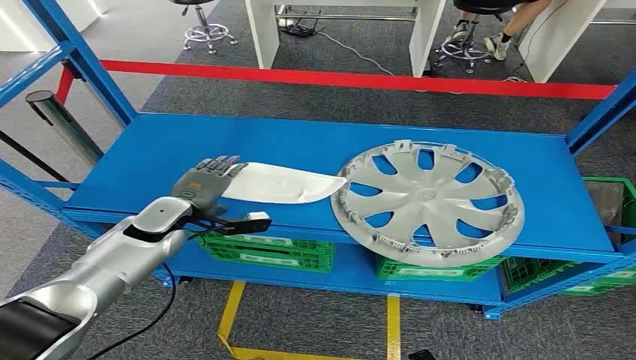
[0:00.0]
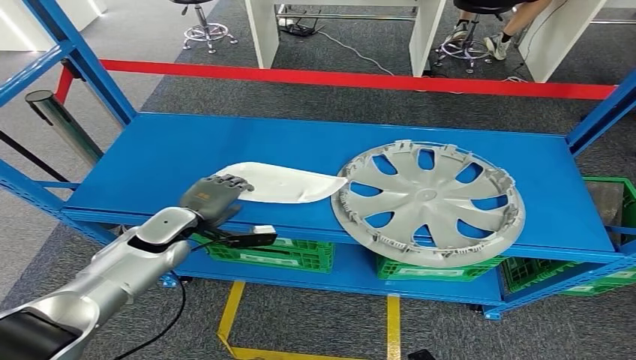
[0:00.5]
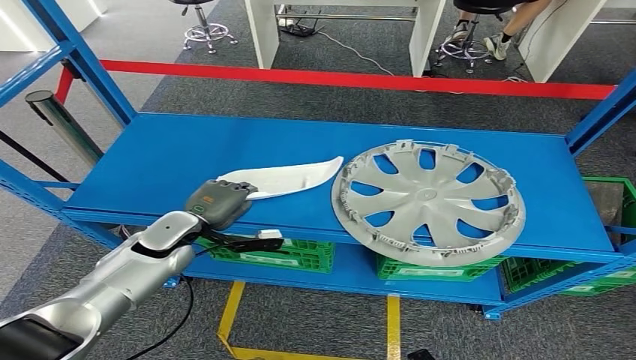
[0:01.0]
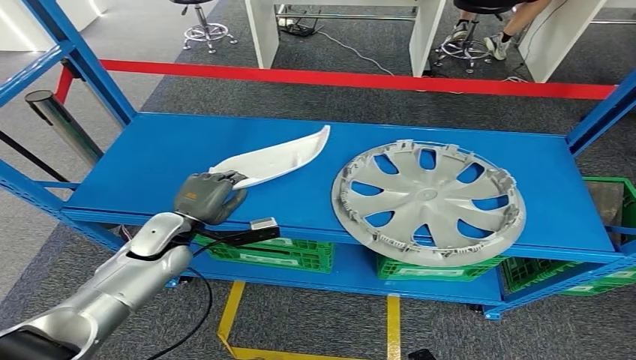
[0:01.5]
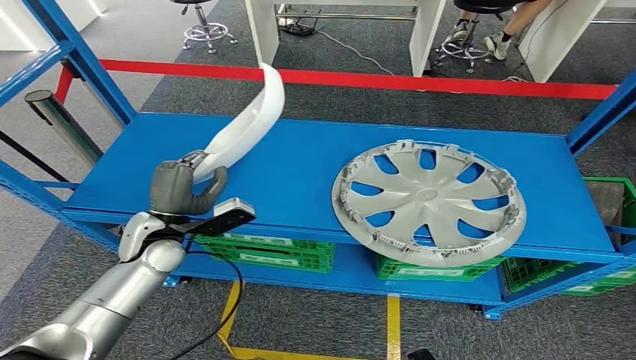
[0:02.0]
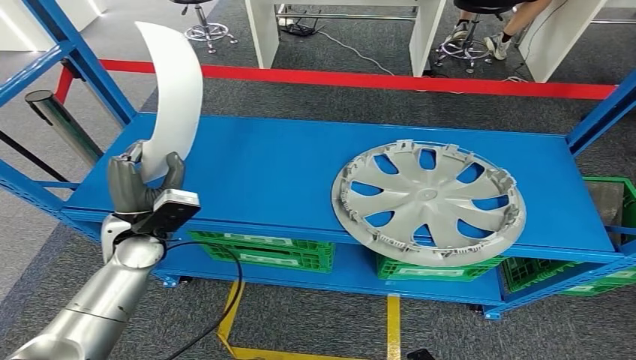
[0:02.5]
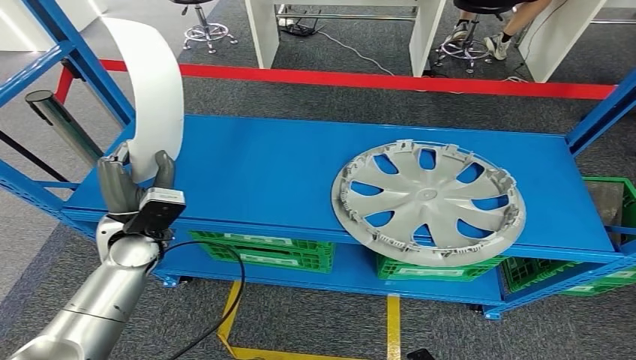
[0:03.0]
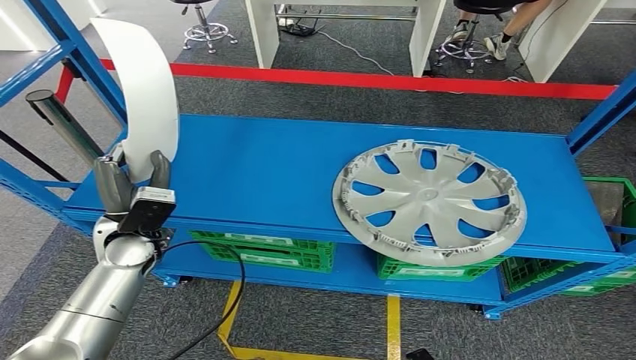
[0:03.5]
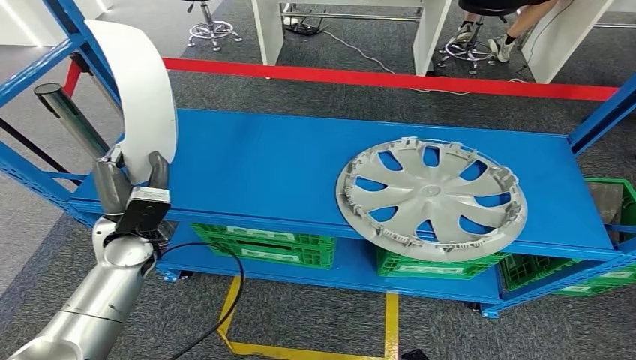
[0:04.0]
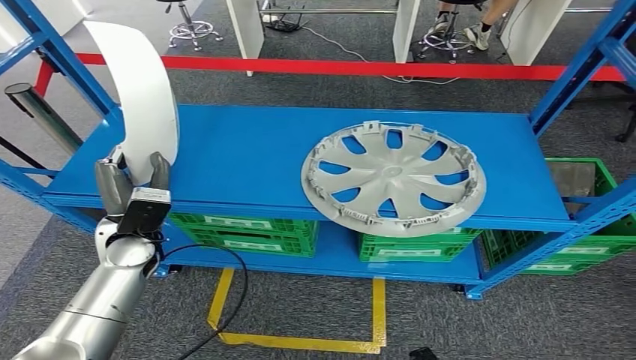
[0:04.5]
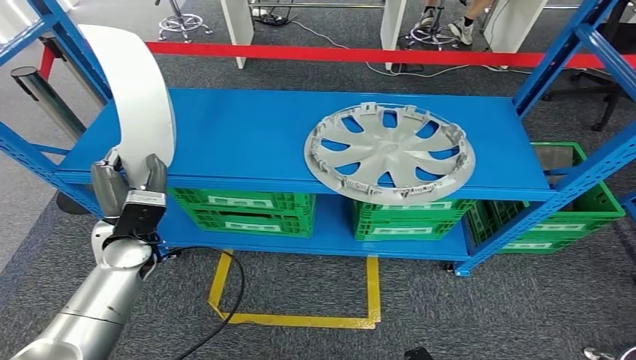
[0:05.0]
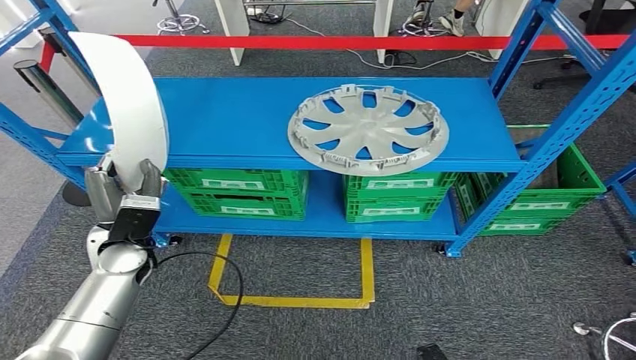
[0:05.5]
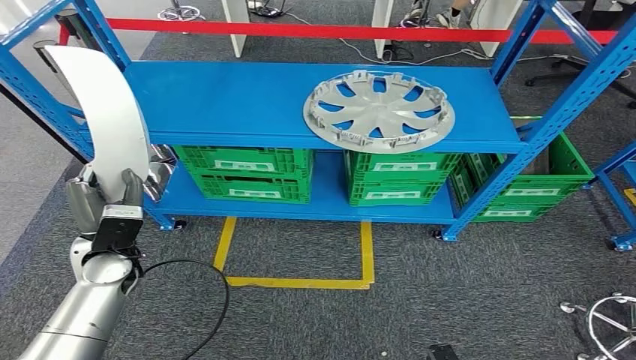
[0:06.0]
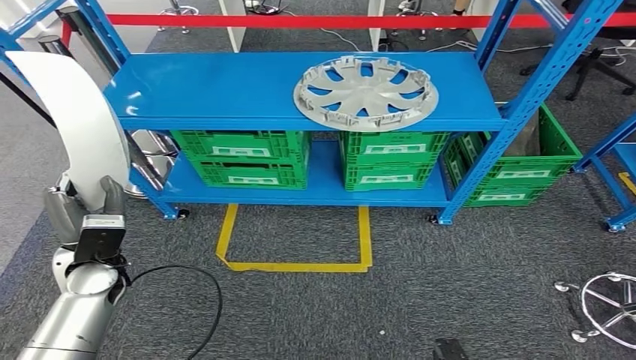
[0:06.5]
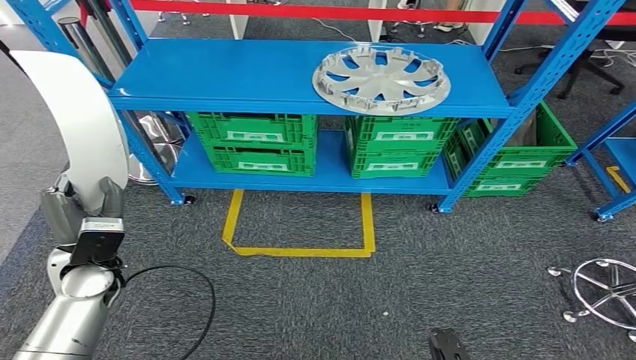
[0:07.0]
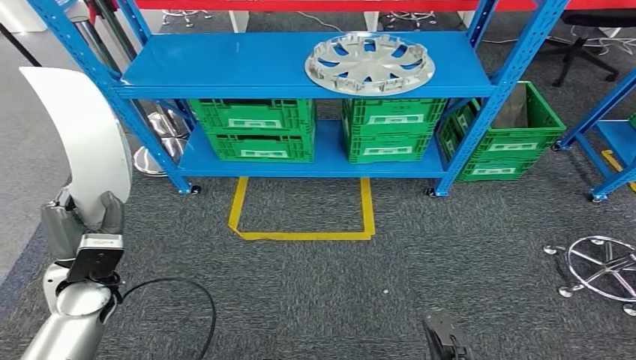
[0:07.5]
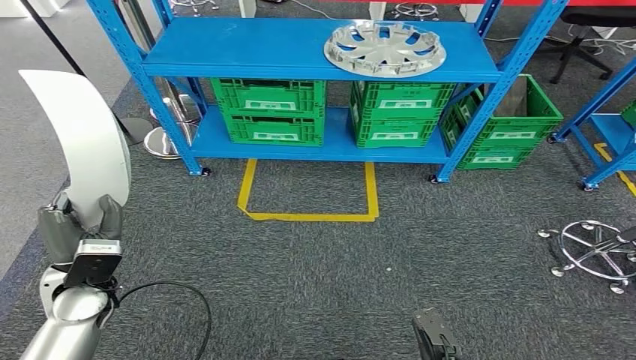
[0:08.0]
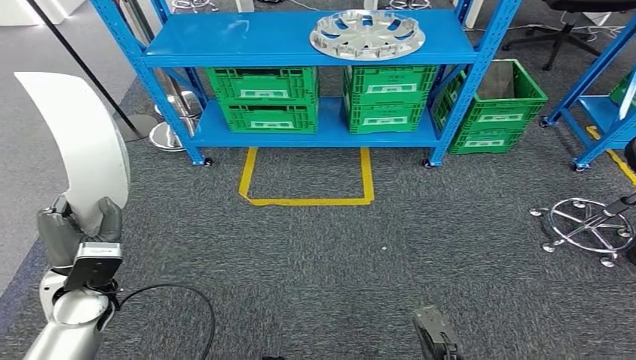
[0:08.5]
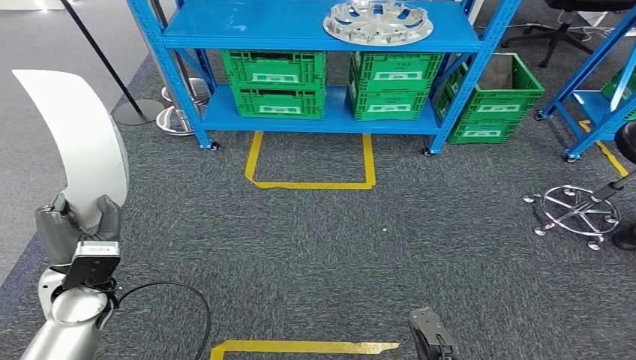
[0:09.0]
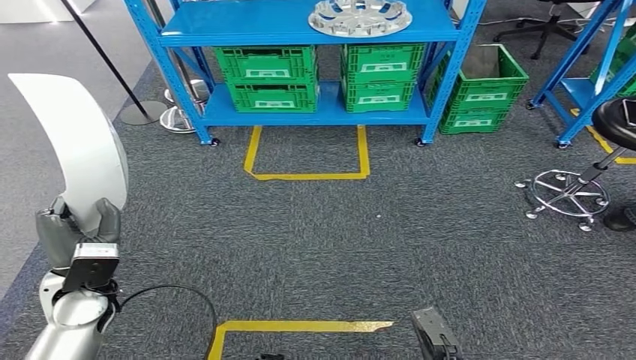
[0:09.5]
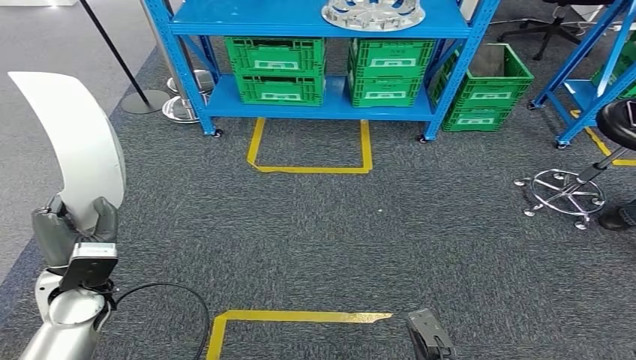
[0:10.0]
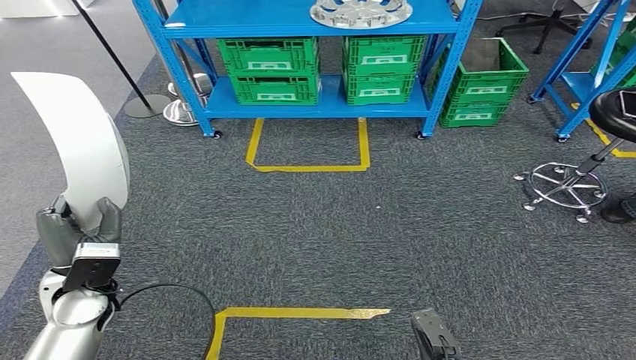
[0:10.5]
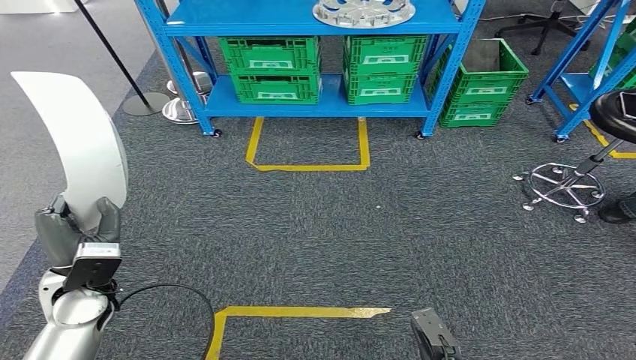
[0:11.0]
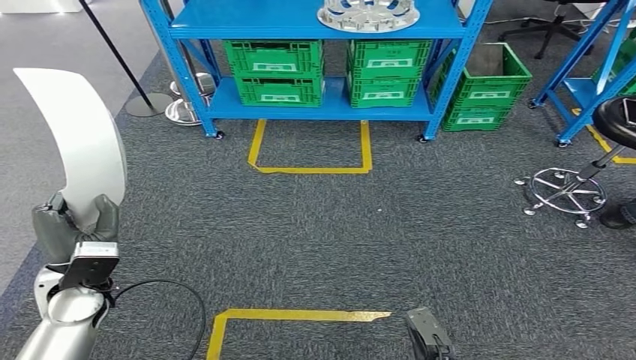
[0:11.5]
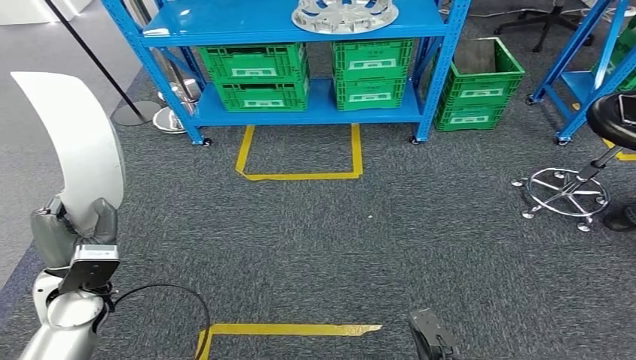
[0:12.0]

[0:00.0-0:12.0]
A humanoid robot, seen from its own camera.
Step, 0:00.0 to 0:04.5: Pick up the small parts from the shelf.

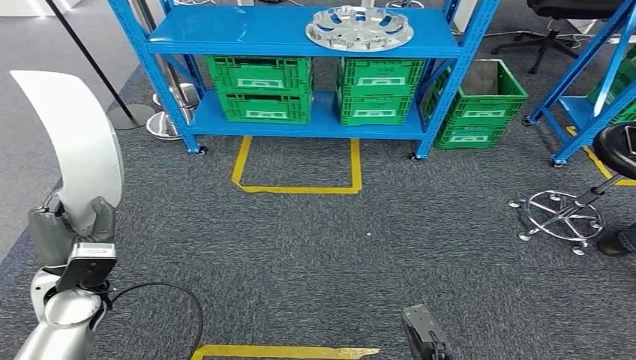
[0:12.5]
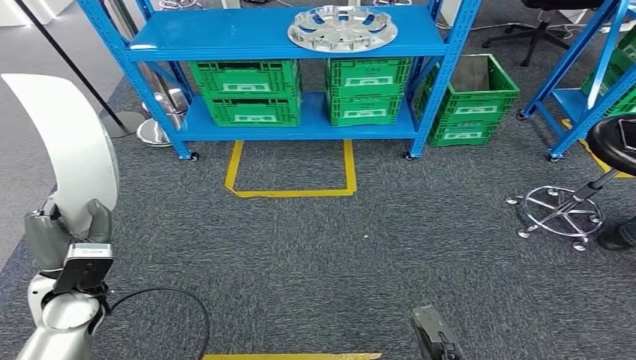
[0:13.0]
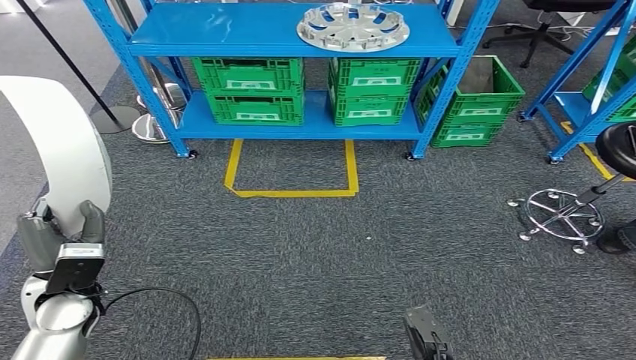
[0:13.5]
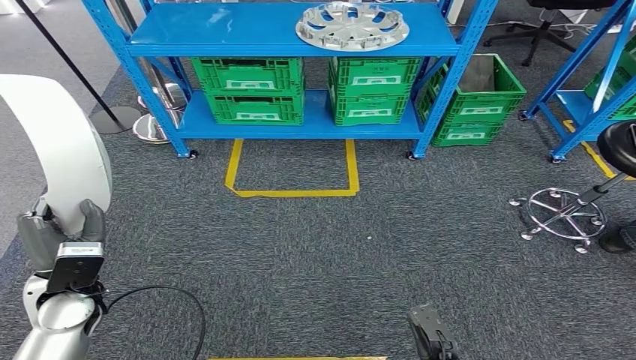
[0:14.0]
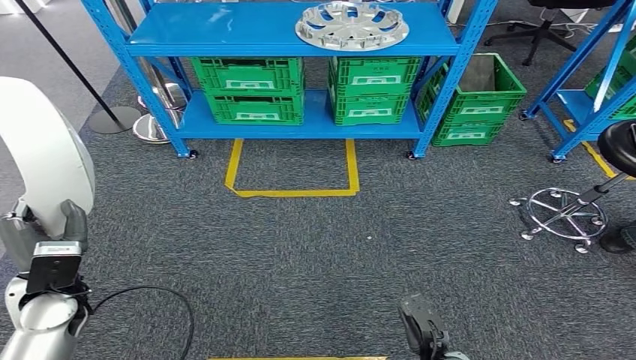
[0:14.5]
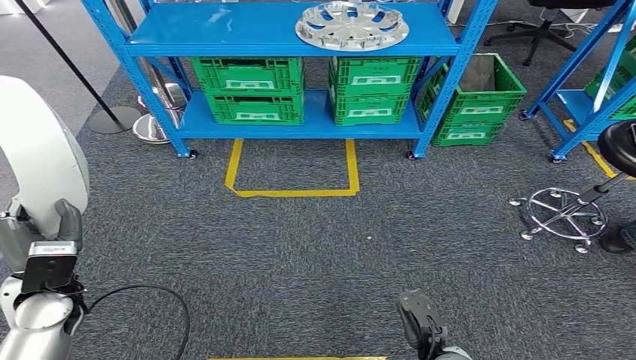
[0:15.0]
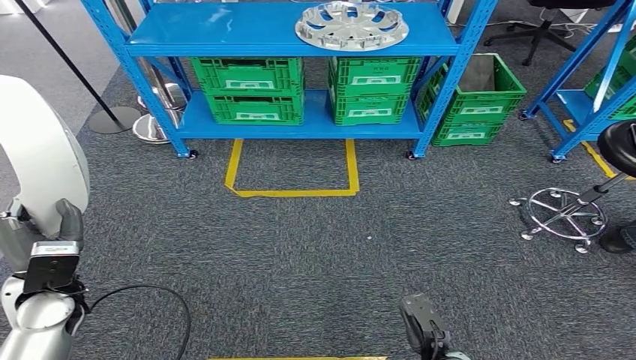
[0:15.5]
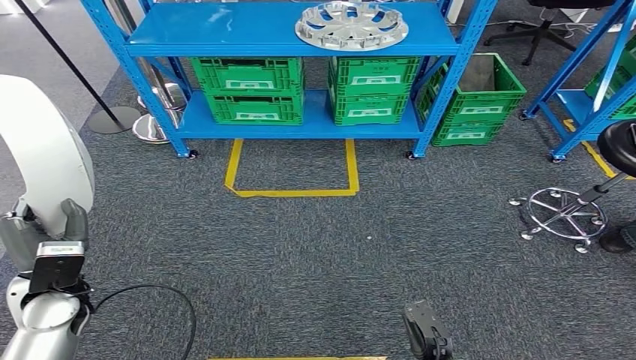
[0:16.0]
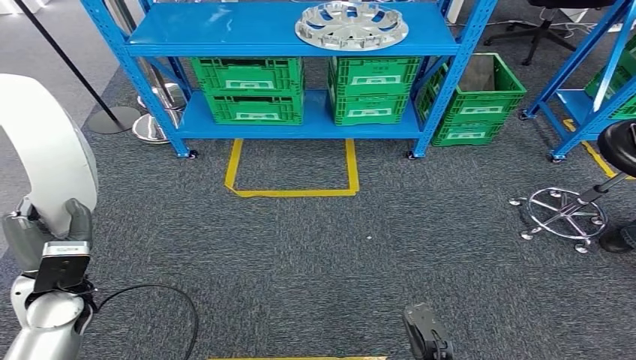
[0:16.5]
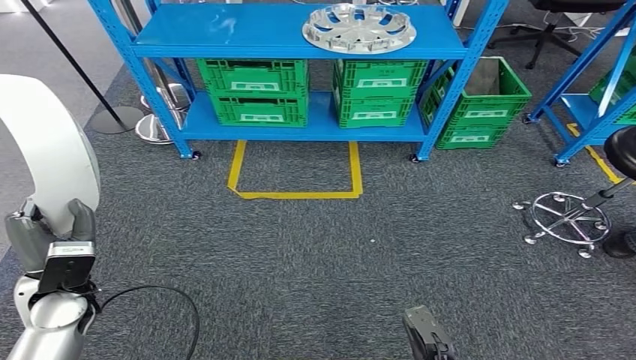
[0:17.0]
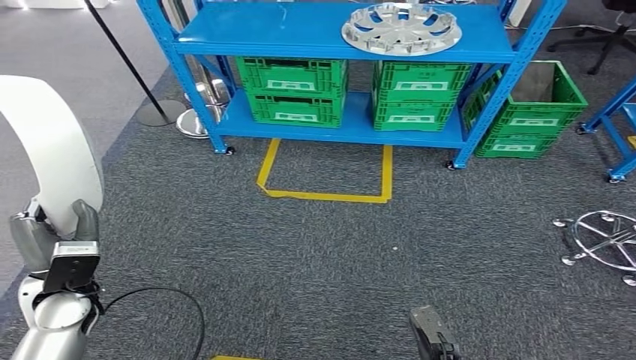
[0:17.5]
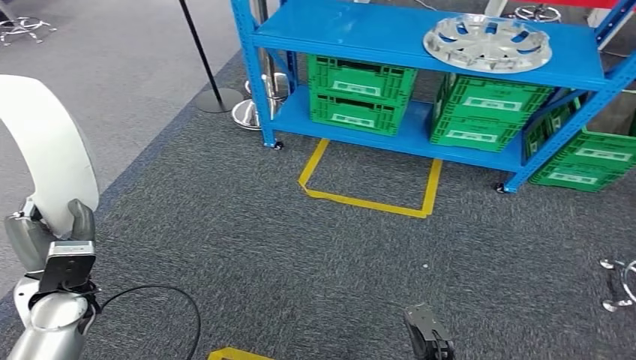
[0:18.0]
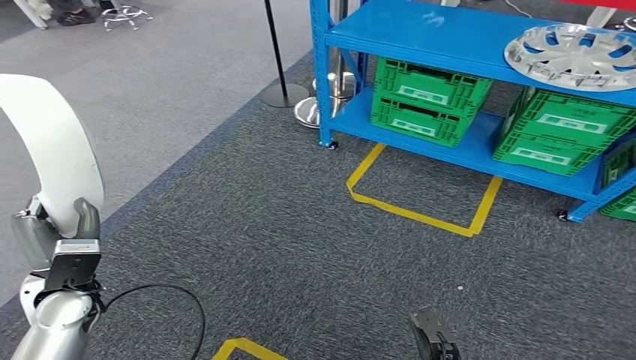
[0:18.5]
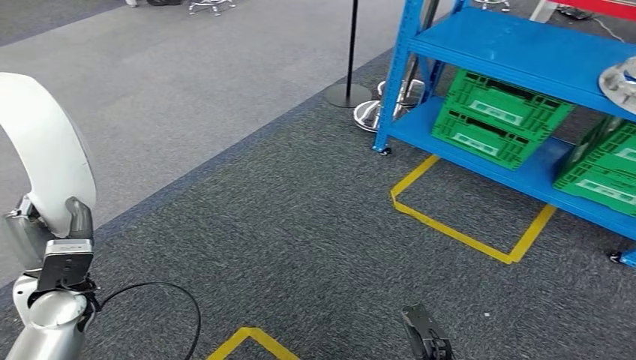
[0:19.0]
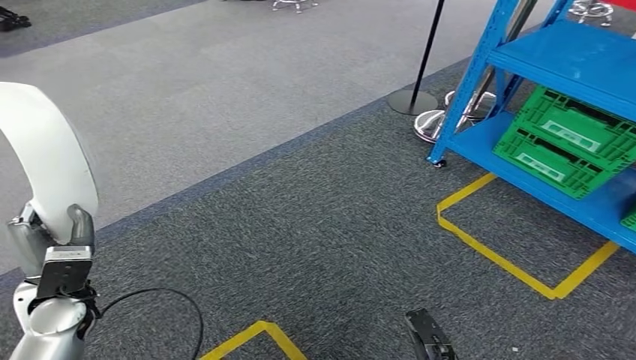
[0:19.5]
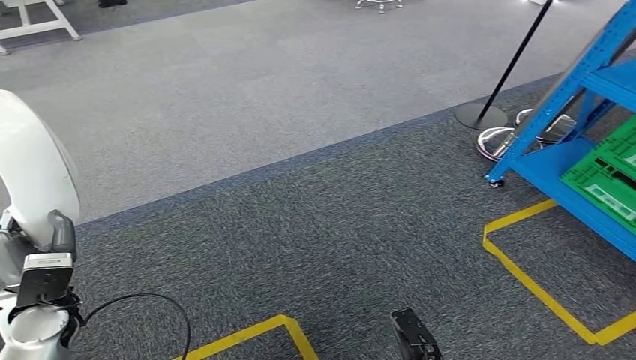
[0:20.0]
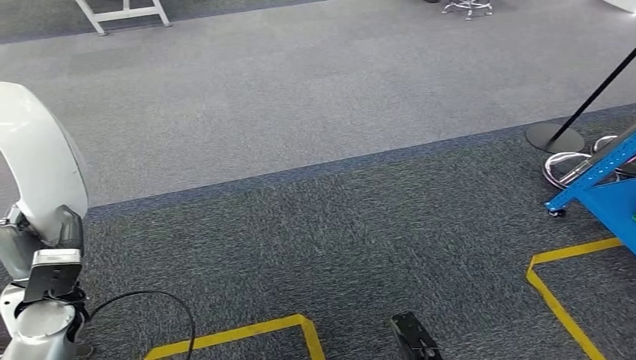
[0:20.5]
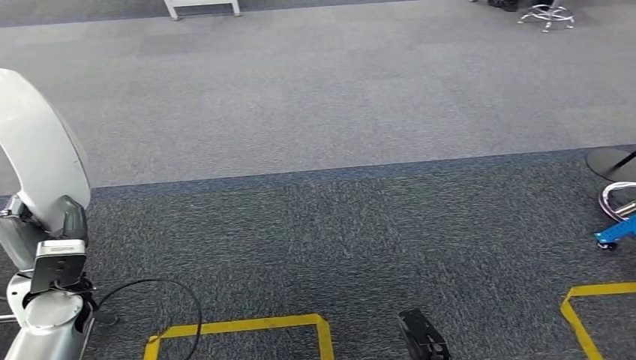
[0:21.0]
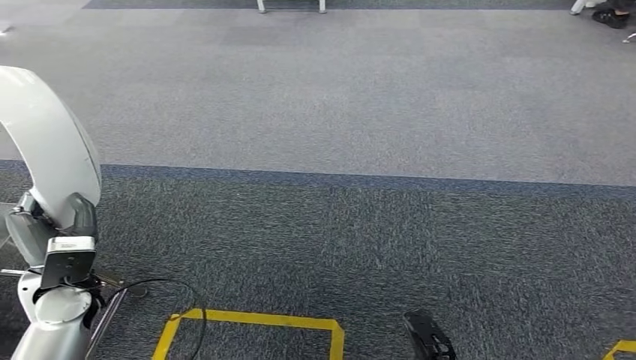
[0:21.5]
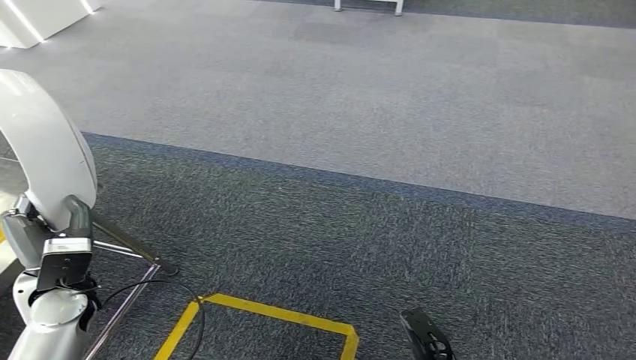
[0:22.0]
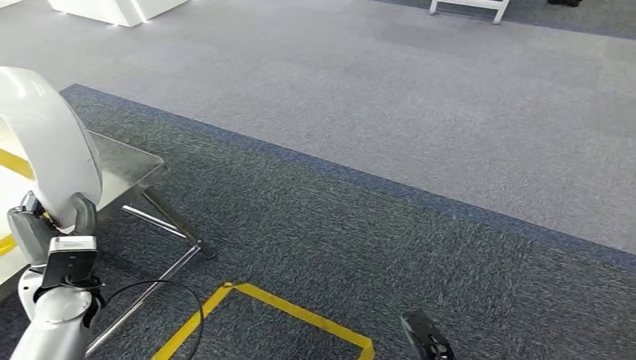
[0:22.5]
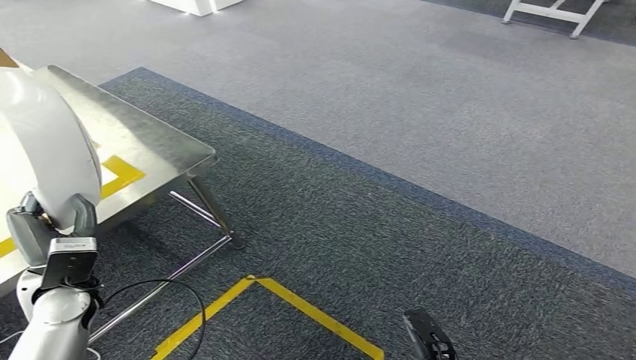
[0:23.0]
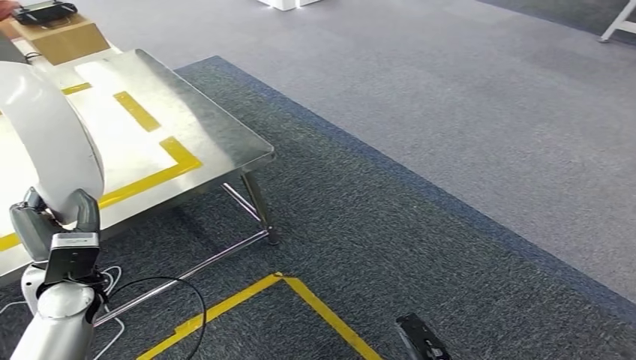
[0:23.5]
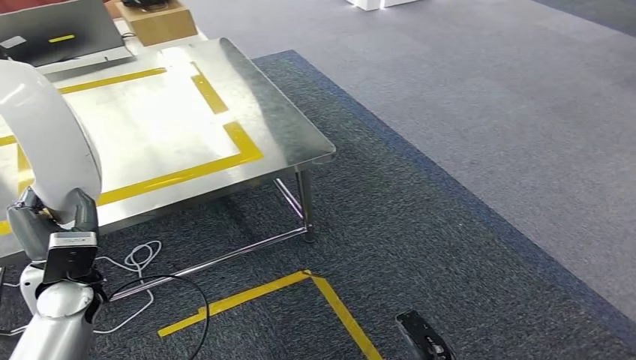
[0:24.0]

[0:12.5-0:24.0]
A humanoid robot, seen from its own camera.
0:14.5 to 0:16.5: The hands stay close to where they were, moving slightly.
